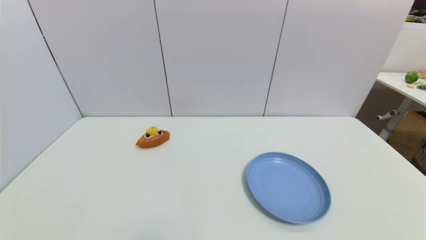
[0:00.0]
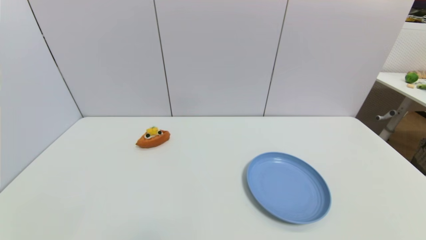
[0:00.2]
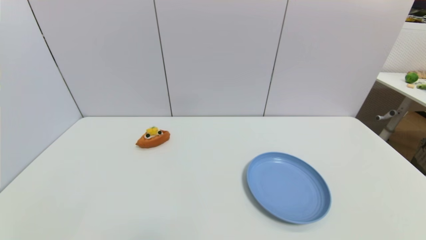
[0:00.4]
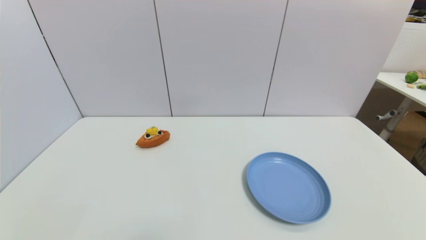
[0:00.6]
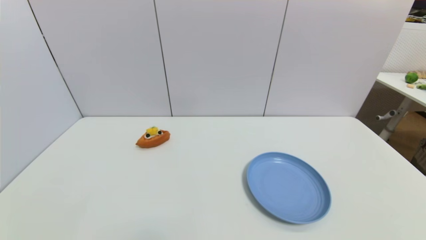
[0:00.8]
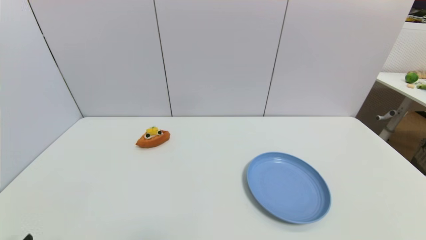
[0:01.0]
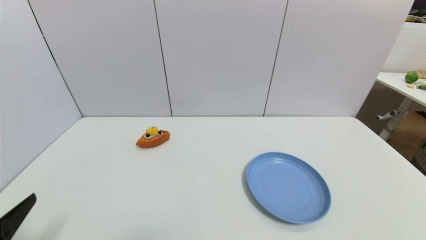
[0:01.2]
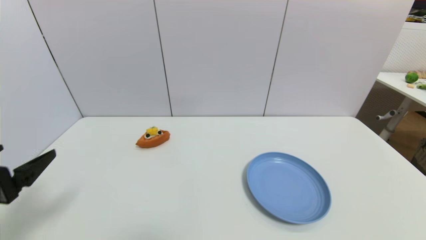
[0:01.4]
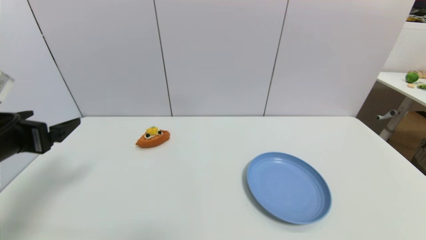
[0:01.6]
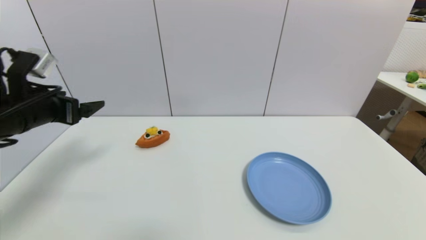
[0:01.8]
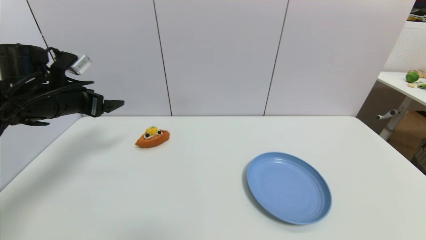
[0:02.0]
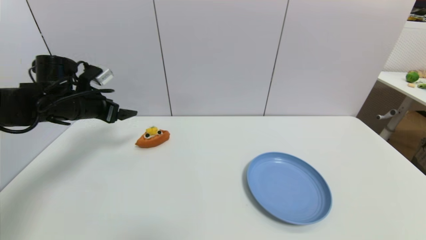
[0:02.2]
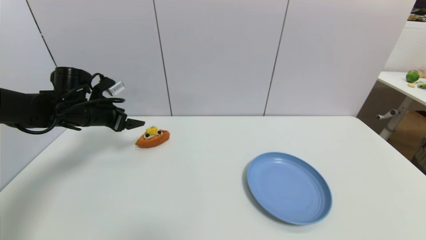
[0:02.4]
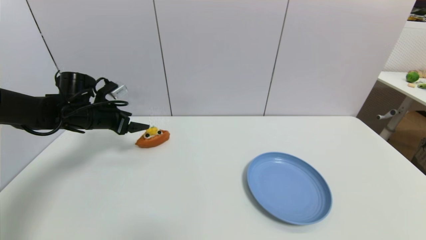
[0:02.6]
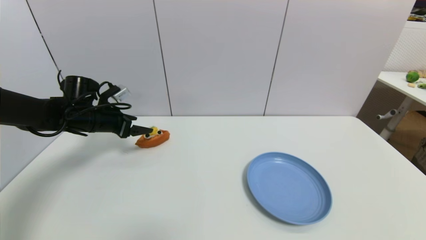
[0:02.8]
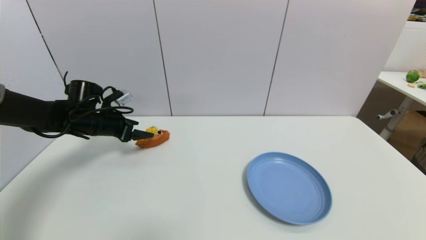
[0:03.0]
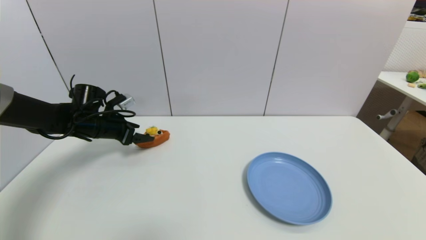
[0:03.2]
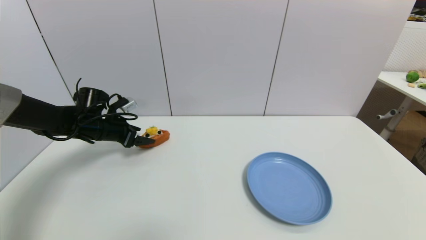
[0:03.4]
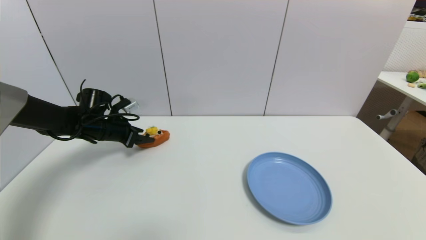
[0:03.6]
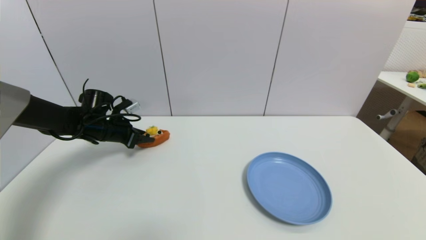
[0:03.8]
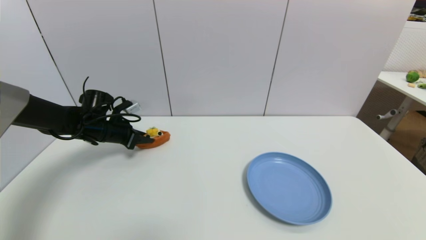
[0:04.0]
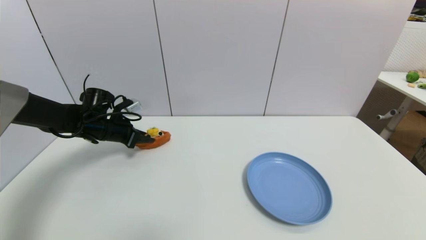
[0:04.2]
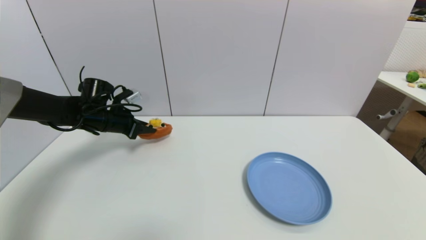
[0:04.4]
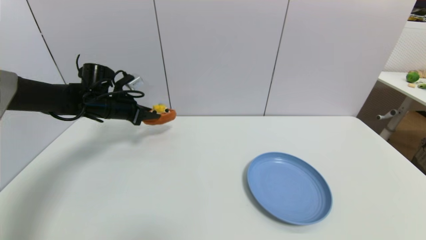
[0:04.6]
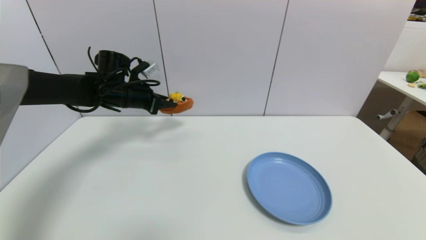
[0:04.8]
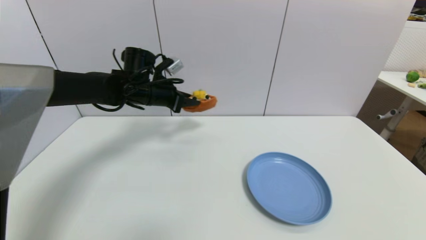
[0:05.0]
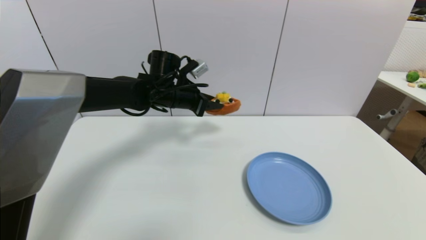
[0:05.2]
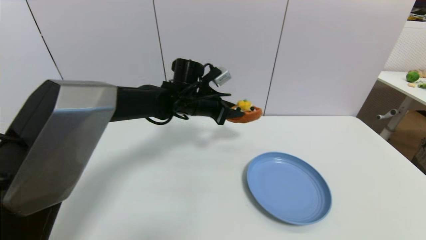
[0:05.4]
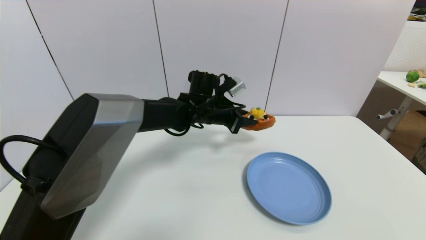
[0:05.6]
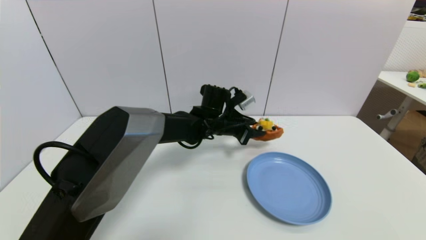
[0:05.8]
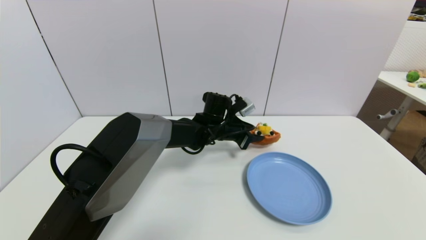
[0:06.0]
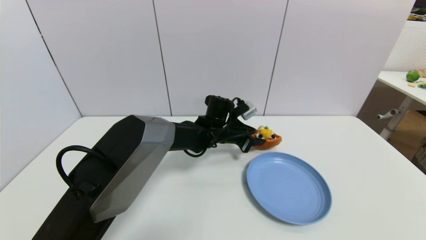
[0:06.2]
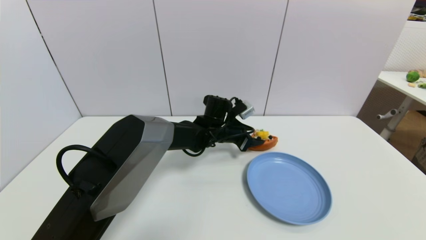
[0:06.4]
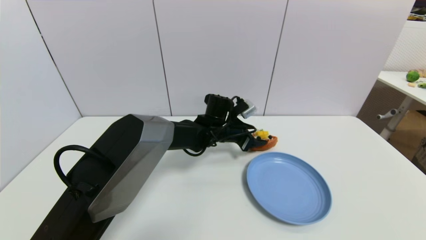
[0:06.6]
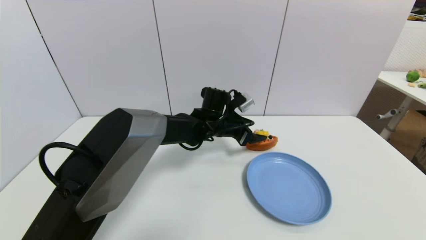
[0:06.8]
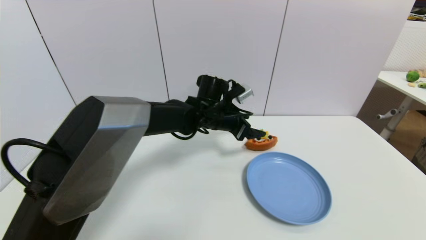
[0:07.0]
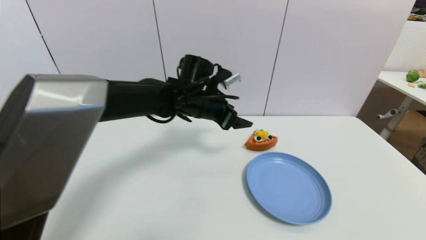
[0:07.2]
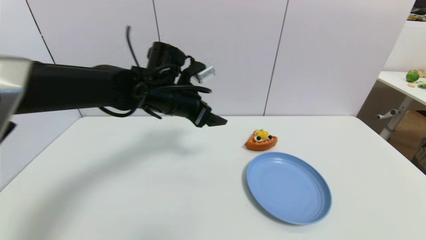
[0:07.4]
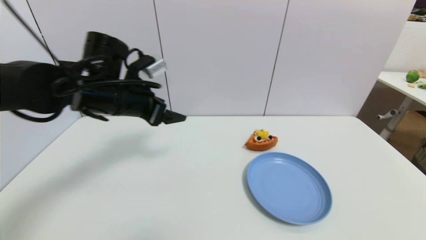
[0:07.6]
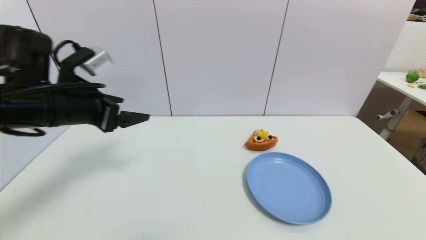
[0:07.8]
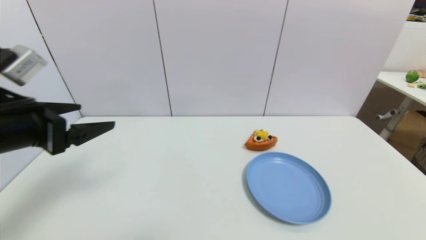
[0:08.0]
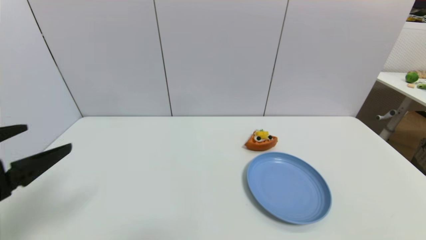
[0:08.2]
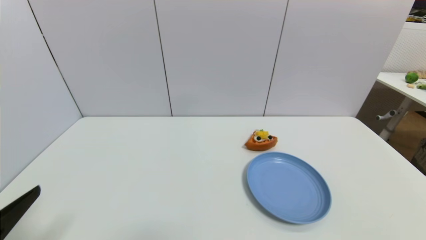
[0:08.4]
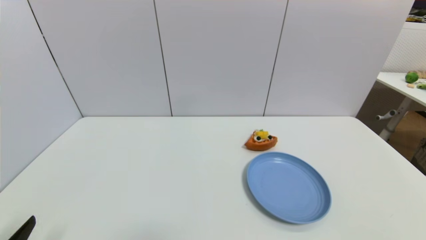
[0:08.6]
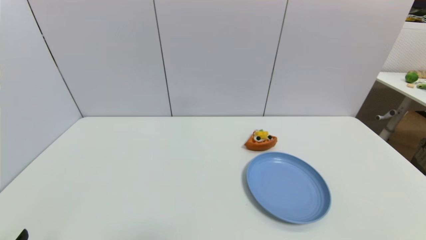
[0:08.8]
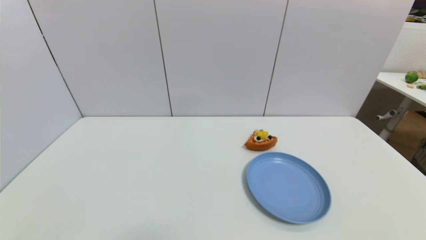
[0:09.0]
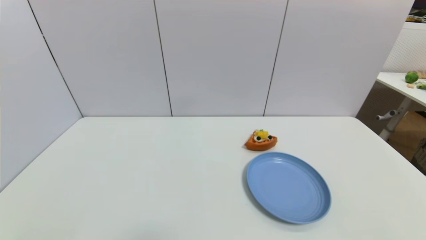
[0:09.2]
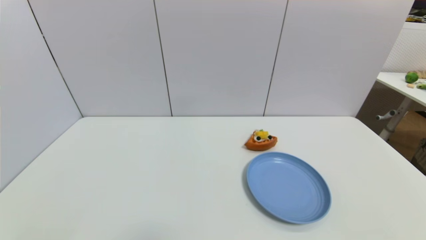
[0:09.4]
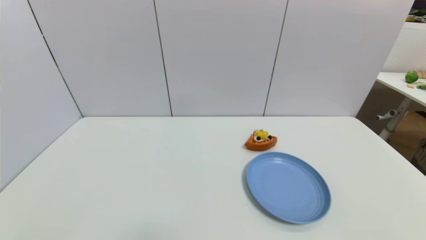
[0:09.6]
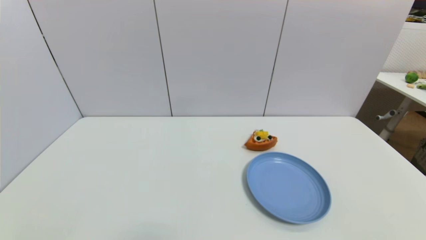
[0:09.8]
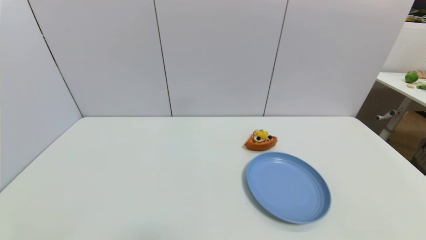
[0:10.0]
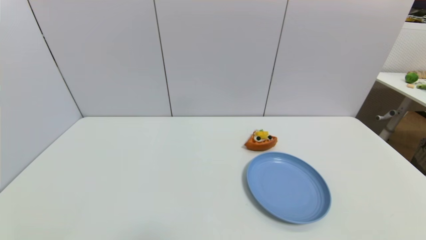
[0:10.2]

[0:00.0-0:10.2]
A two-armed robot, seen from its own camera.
Step, 0:01.0 to 0:04.4: Grasp the pizza with left gripper.
Step, 0:04.6 to 0:06.6: Place the pizza on the table with left gripper.
0:00.0 to 0:01.4: The left gripper goes roughly 20 cm upward and forward.
0:01.4 to 0:03.0: The left gripper travels forward by some 25 cm.
0:03.0 to 0:04.4: The left gripper closes its fingers.
0:04.4 to 0:05.8: The left gripper goes about 30 cm to the right.
0:05.8 to 0:07.2: The left gripper goes about 10 cm upward and to the left, and opens up.
0:07.2 to 0:08.8: The left gripper shifts roughly 50 cm backward and to the left.
